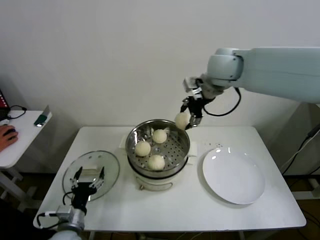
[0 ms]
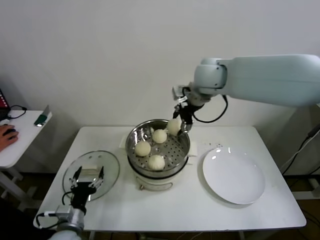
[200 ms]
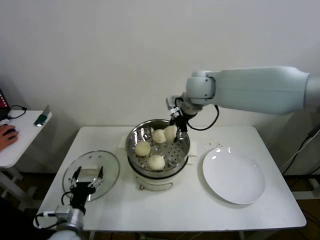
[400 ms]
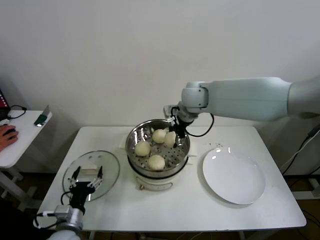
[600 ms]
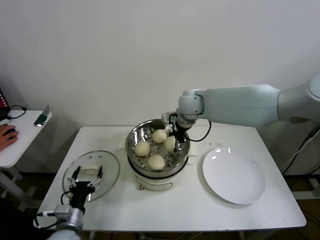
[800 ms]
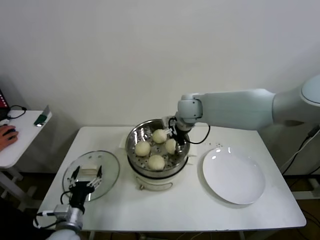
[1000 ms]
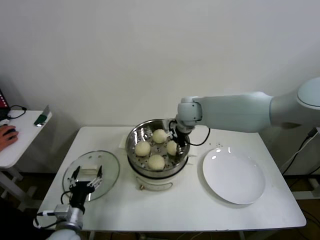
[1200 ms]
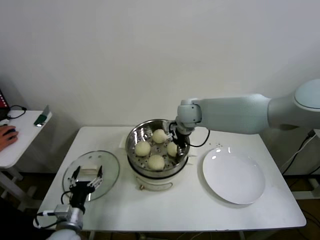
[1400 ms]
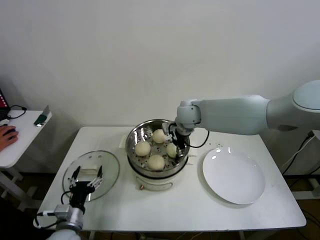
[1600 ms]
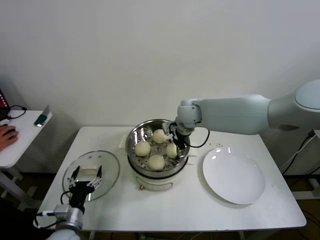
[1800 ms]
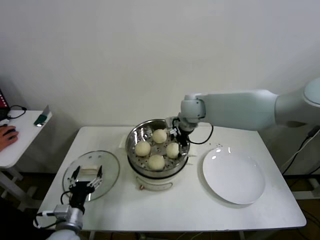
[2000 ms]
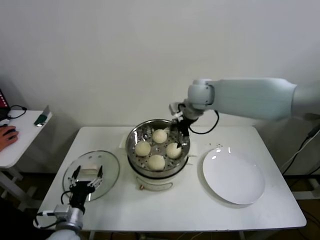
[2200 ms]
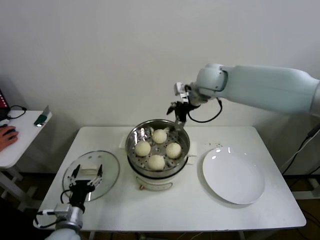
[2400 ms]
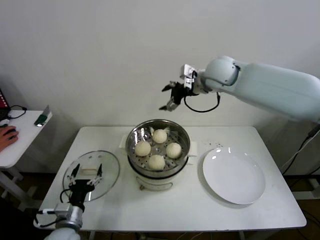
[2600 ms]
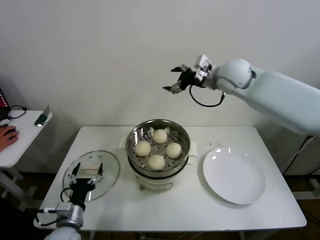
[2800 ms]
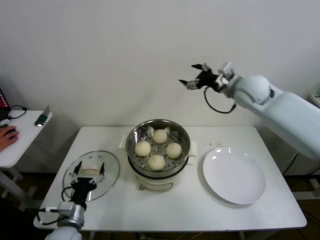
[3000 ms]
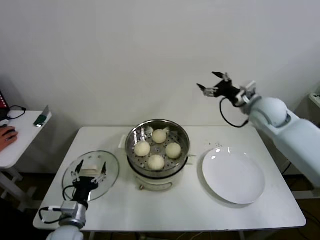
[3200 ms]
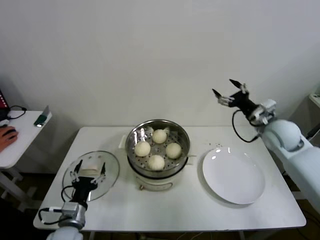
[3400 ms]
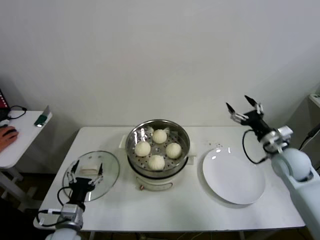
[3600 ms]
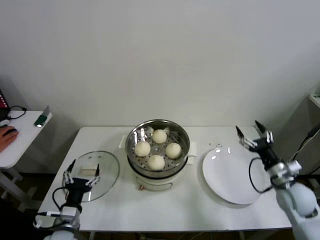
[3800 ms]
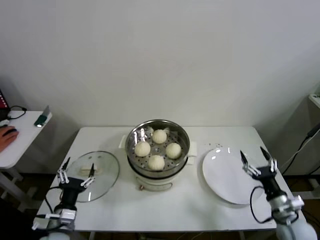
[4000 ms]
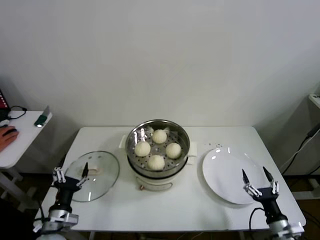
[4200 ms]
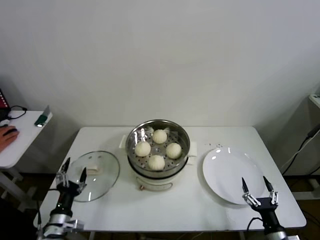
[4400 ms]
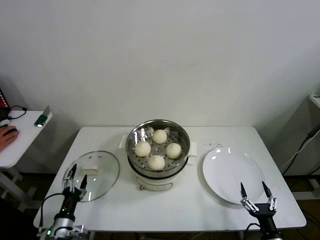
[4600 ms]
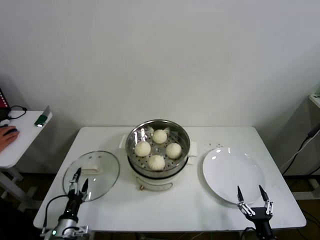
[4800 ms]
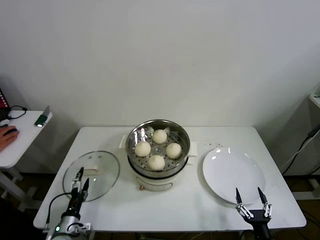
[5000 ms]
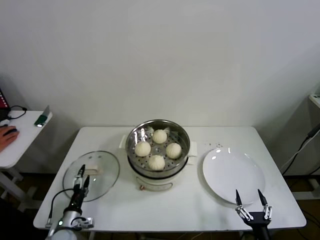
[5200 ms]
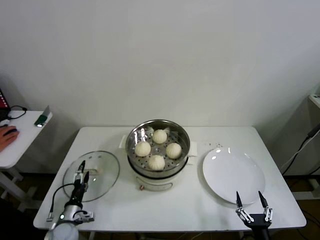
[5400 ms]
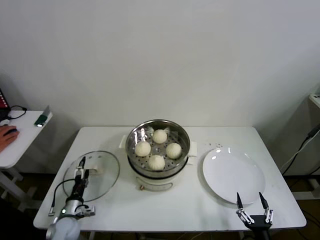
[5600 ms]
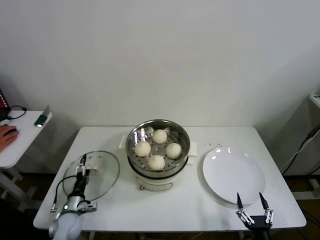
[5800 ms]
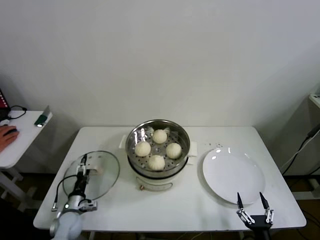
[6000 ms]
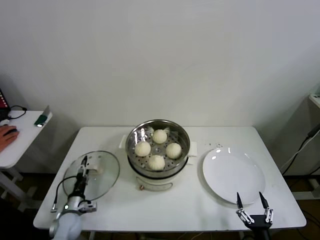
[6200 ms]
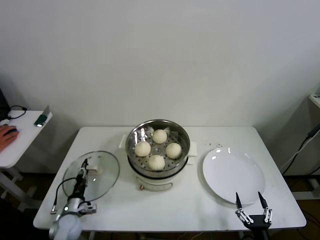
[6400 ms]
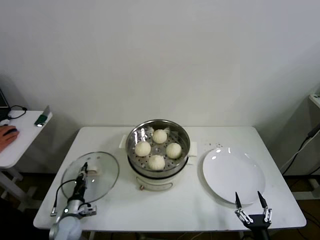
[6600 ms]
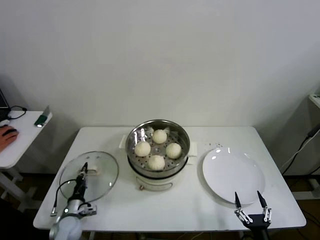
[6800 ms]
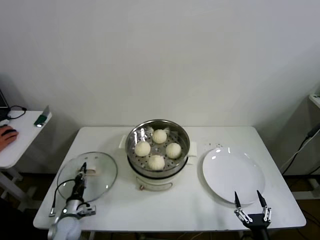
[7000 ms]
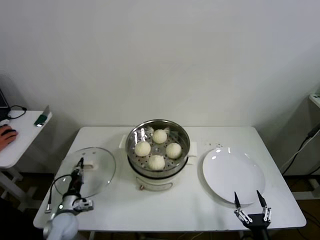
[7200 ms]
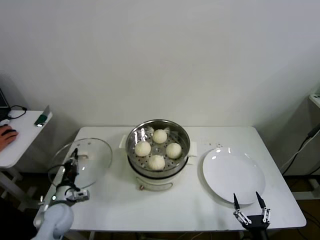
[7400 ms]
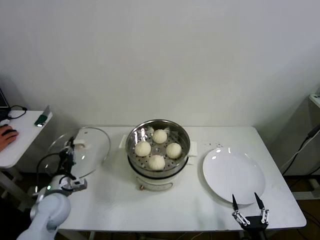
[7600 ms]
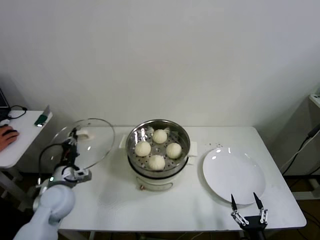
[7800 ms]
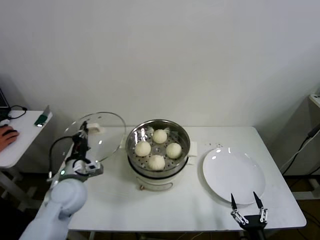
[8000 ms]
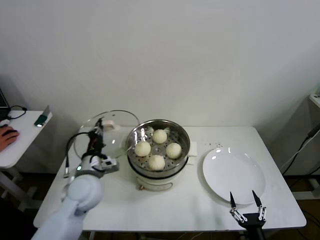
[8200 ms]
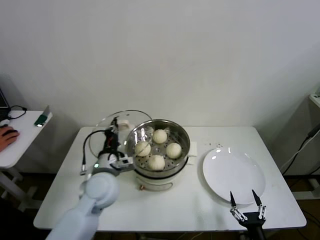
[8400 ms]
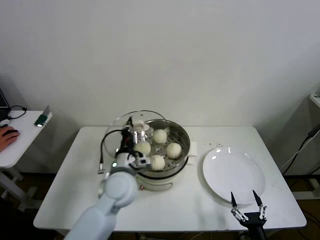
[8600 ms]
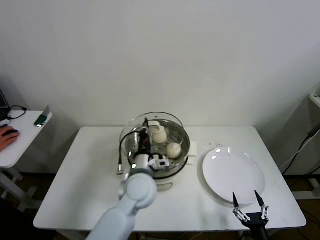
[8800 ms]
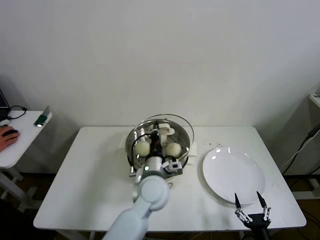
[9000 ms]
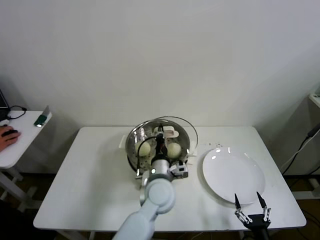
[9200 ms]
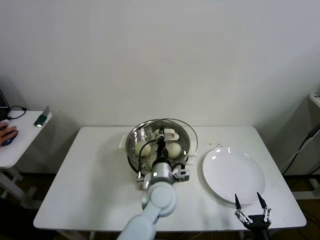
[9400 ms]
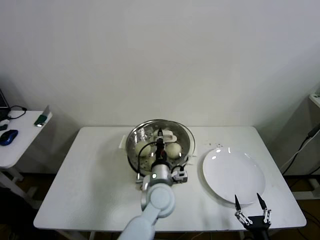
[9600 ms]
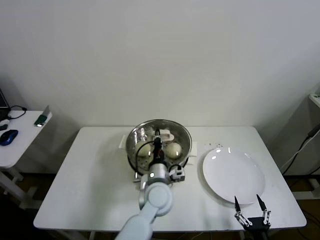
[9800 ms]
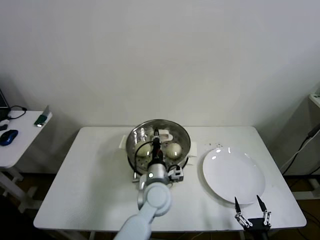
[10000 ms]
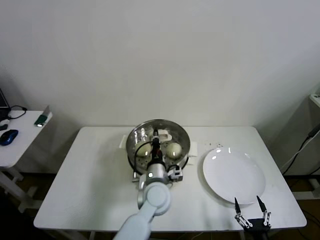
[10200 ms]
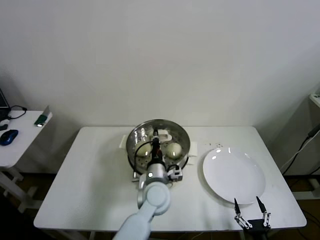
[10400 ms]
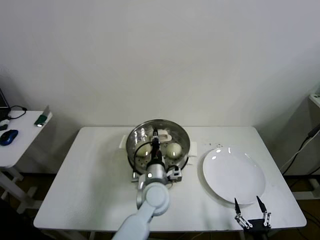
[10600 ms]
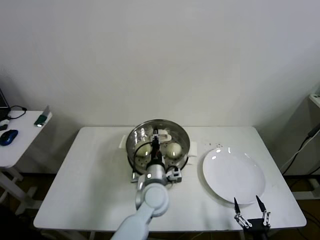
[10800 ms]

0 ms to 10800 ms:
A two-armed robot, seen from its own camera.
Step, 0 ms to 2000 ms: Place the baozi on the steamer with right gripper.
Step, 2200 ms to 6600 ms: Grasp the pot lid with left gripper.
0 ms to 1600 ms: The right gripper moves downward, approximately 15 cm.
1600 ms to 3000 ms: The right gripper shifts about 20 cm to the right and upward, and opens.
3000 ms to 4600 ms: The right gripper heads backward and downward, covering roughly 60 cm. Meanwhile the left gripper travels downward and to the left by approximately 10 cm.
4600 ms to 6200 ms: The left gripper heads forward and downward, covering some 10 cm.
6200 ms to 7800 ms: The left gripper travels upward by about 20 cm, and closes.
7800 ms to 9200 ms: The left gripper is displaced to the right by roughly 30 cm.
9200 ms to 10800 ms: There are only small adjustments of the grippers.

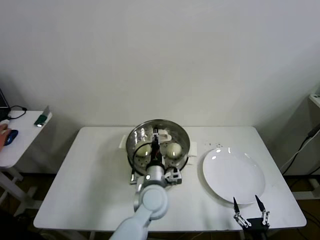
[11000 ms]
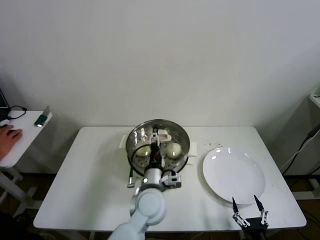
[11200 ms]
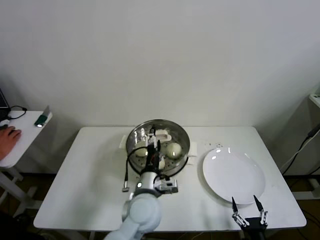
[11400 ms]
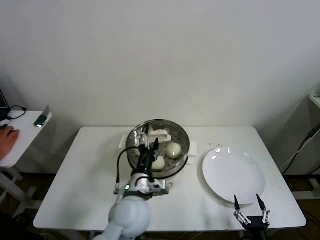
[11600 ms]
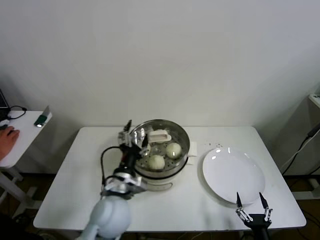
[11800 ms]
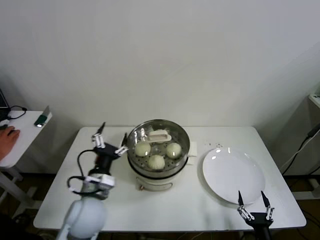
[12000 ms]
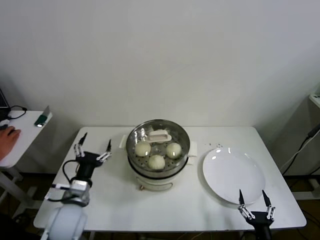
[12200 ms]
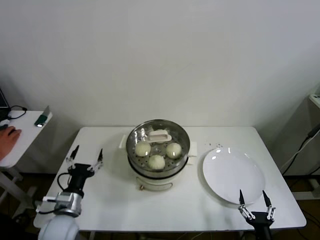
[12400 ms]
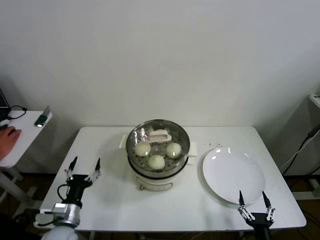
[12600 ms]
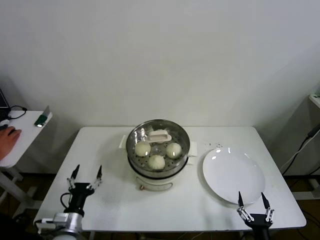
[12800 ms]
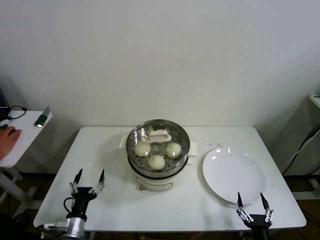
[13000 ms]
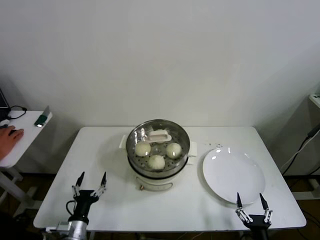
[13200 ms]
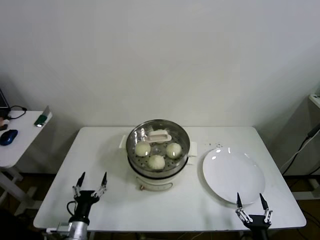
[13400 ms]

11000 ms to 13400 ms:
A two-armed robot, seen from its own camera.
11000 ms to 12200 ms: The left gripper shifts approximately 20 cm to the left, and opens its fingers.
12200 ms to 13400 ms: The left gripper goes approximately 15 cm downward and backward.

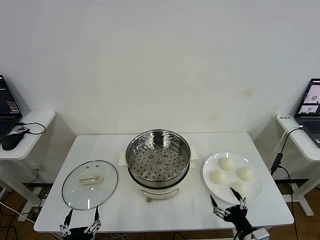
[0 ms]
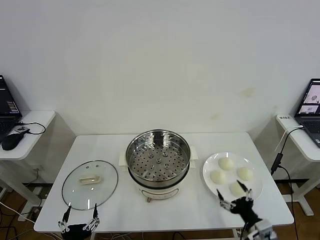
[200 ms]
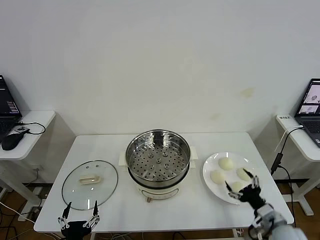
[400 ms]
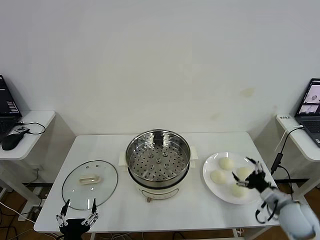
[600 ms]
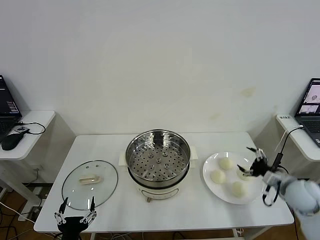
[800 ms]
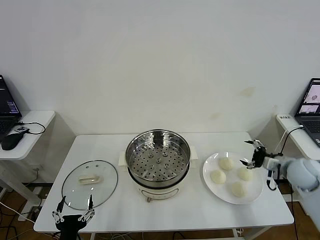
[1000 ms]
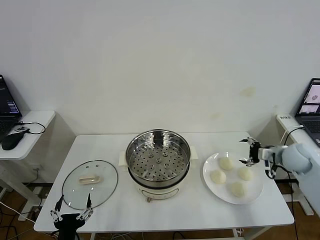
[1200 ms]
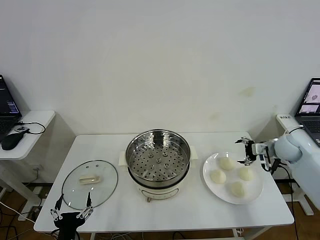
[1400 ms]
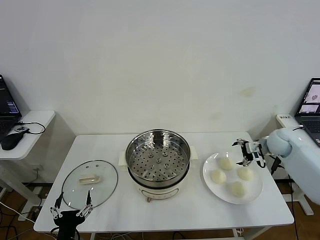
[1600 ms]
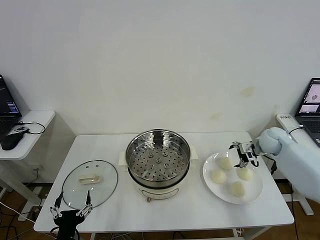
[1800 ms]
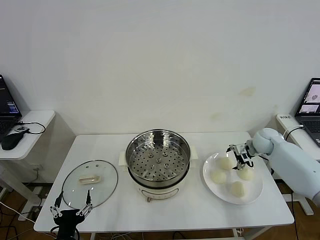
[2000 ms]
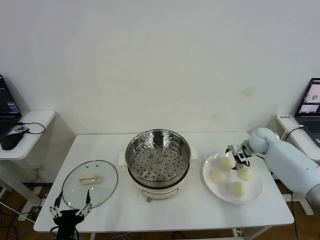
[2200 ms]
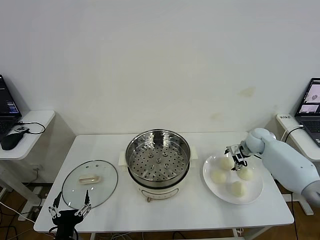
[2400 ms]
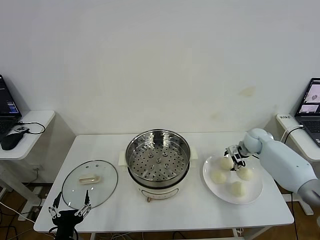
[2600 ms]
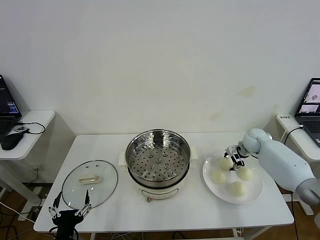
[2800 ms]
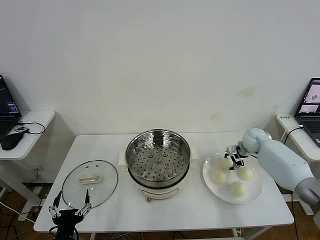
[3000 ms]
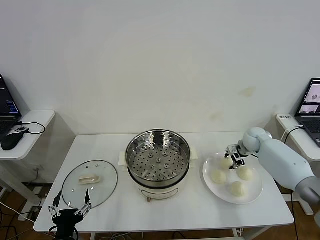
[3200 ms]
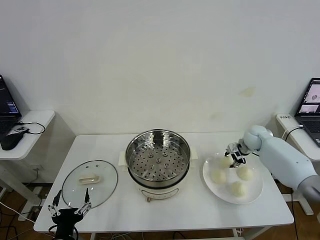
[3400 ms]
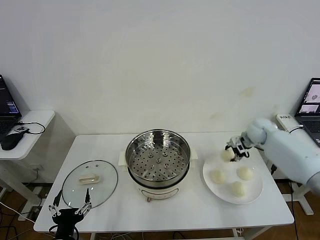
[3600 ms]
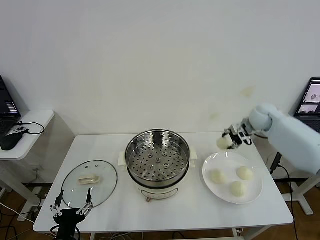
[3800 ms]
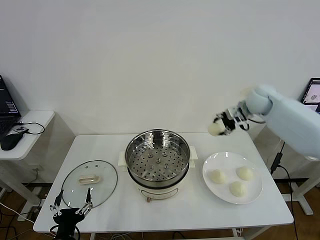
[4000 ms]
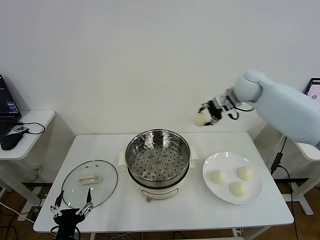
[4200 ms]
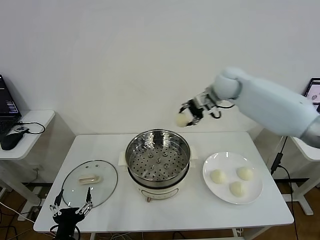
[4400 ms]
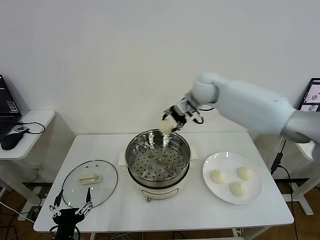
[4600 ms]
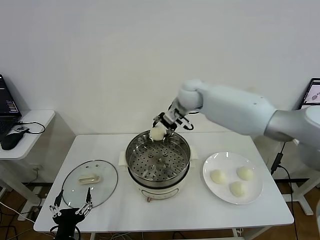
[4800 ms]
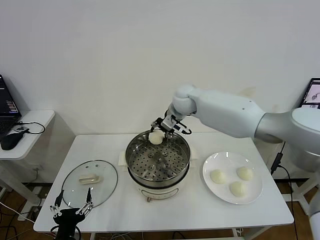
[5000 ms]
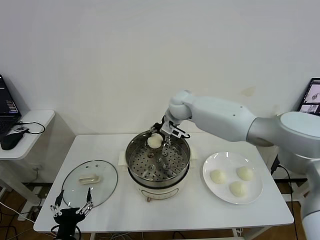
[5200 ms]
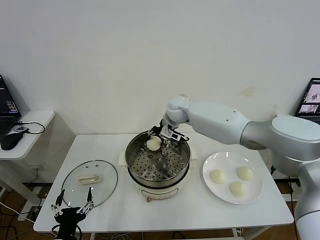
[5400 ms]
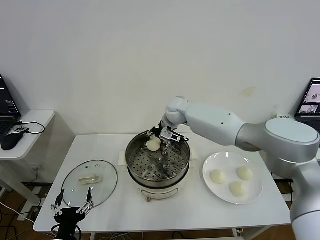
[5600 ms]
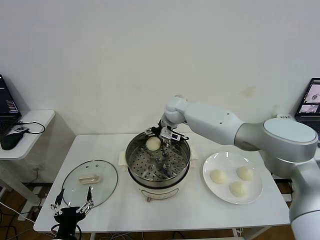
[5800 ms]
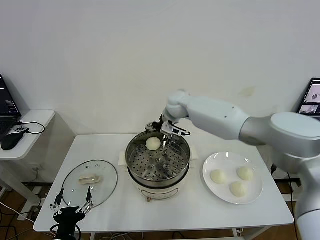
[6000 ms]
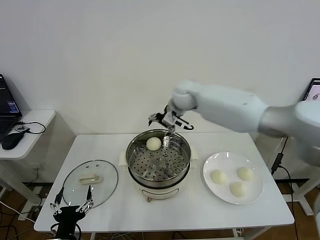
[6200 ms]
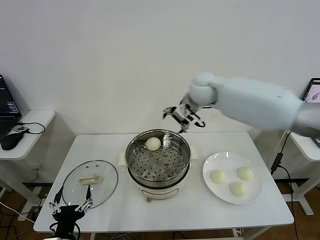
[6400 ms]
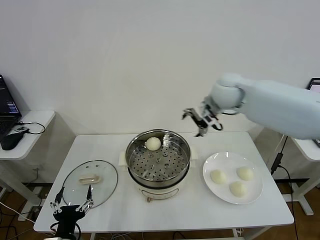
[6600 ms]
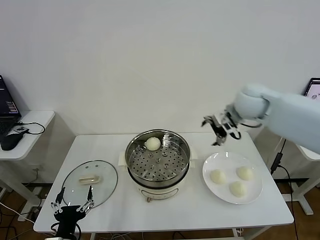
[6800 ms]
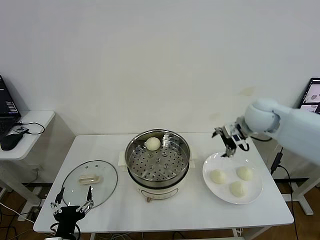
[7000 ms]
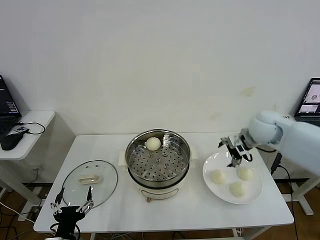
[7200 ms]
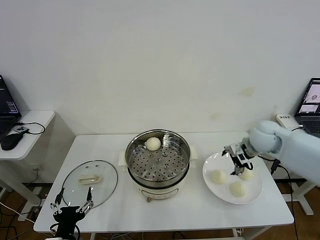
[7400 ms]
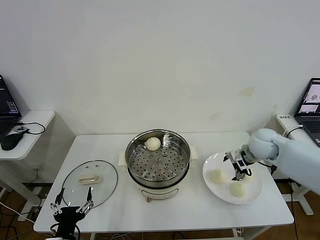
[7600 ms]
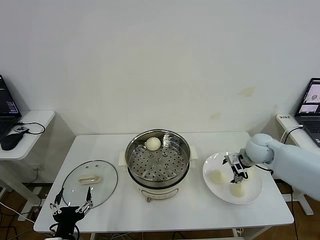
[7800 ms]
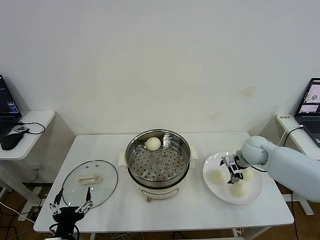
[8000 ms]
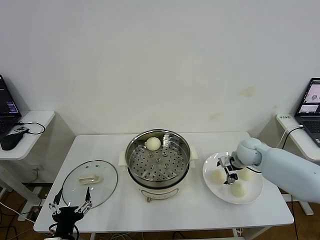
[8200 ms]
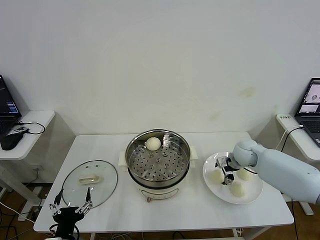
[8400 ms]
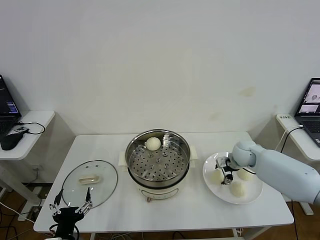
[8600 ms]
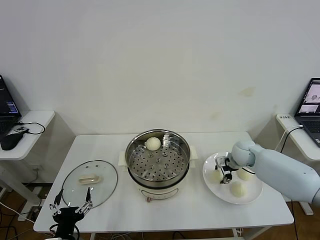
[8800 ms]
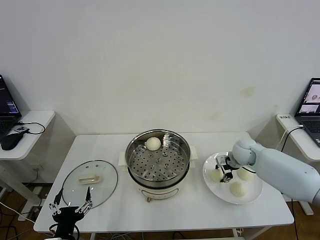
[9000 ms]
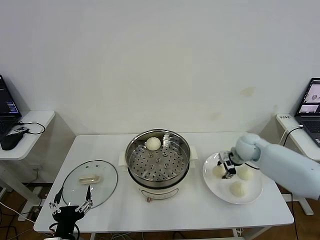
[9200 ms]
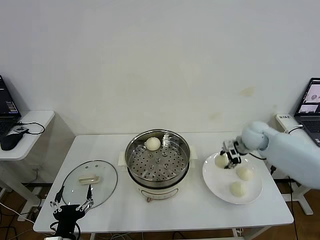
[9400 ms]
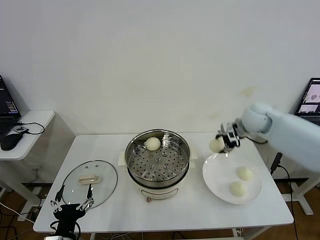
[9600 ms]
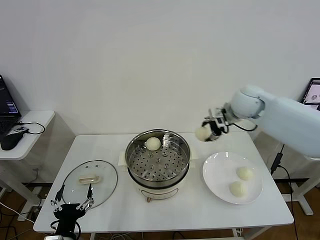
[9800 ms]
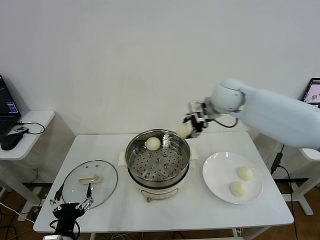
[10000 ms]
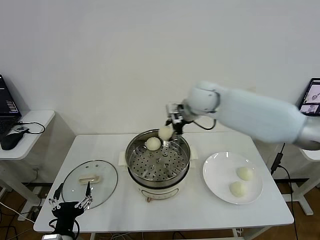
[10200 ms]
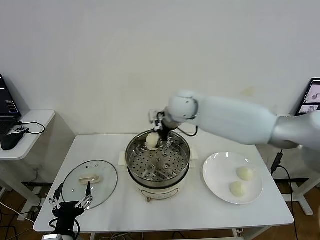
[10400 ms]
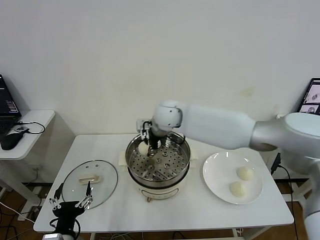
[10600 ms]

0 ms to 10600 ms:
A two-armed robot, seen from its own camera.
Step, 0 ms to 2800 ms: Grasp the baozi in the plate with right gripper.
Step, 3000 ms to 5800 ms: Place the baozi on the steamer with right gripper.
Step, 6200 ms to 9000 ms: Grasp the baozi in the plate with right gripper.
1600 ms to 3000 ms: The right gripper shifts approximately 5 cm downward and forward, and closes.
3000 ms to 4600 ms: The right gripper goes roughly 35 cm to the left and upward.
4600 ms to 6000 ms: The right gripper opens its fingers.
6000 ms to 7600 ms: The right gripper heads to the right and backward, covering some 30 cm.
7600 ms to 9000 ms: The right gripper moves downward, approximately 5 cm, and closes.
9000 ms to 10600 ms: The right gripper travels to the left and upward by roughly 35 cm.
